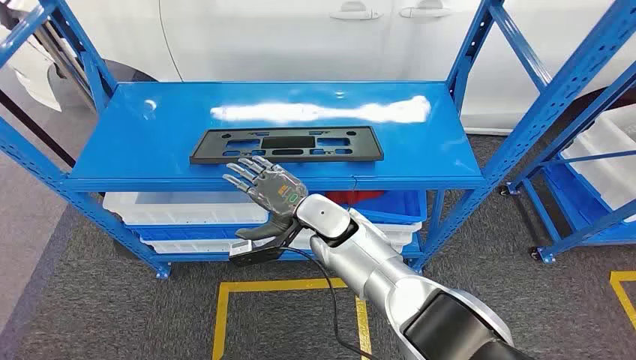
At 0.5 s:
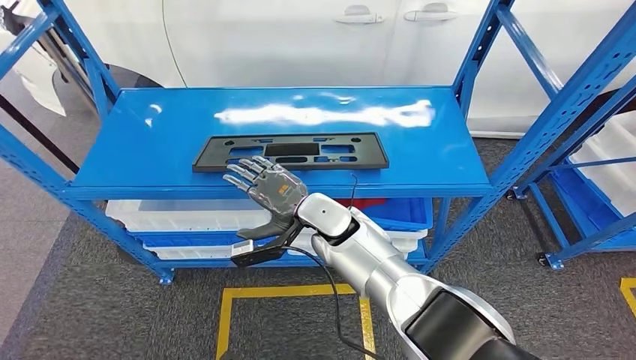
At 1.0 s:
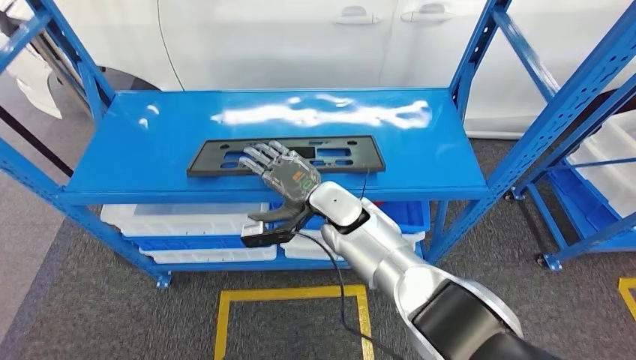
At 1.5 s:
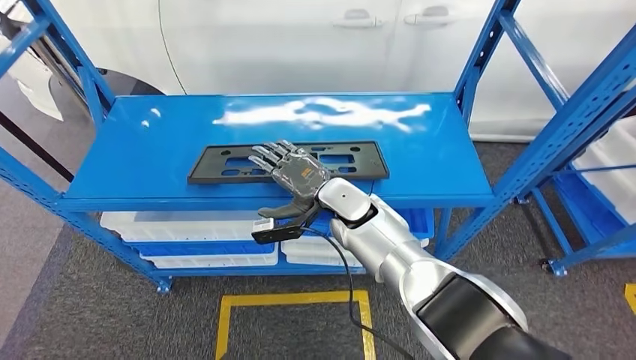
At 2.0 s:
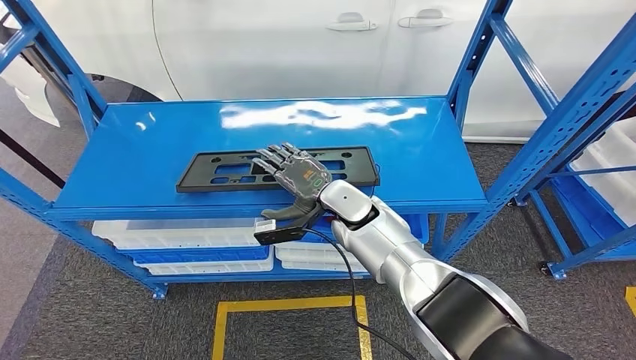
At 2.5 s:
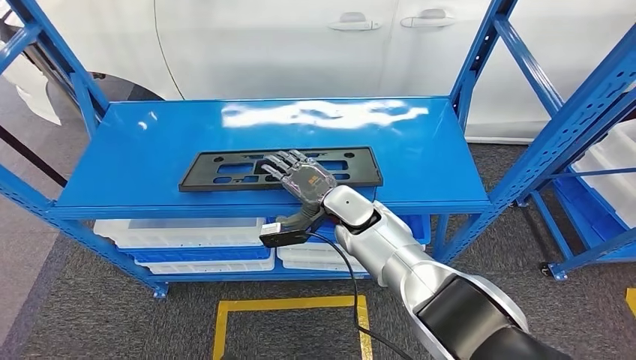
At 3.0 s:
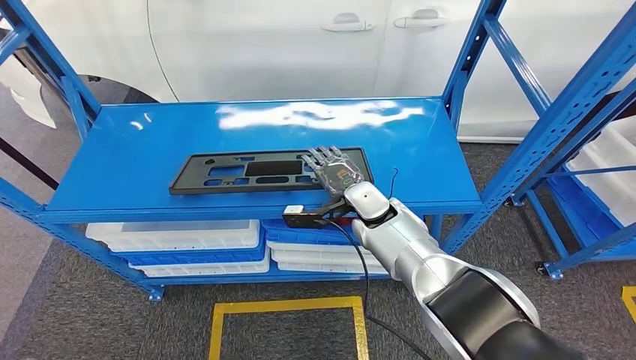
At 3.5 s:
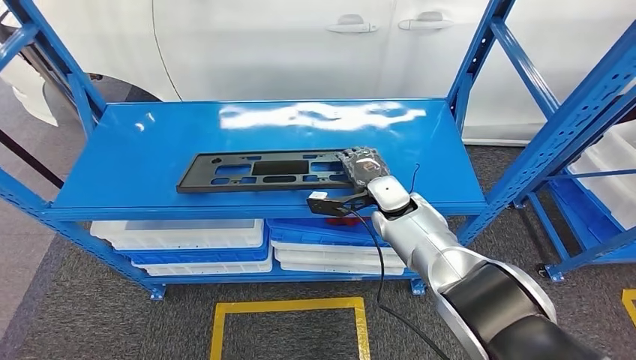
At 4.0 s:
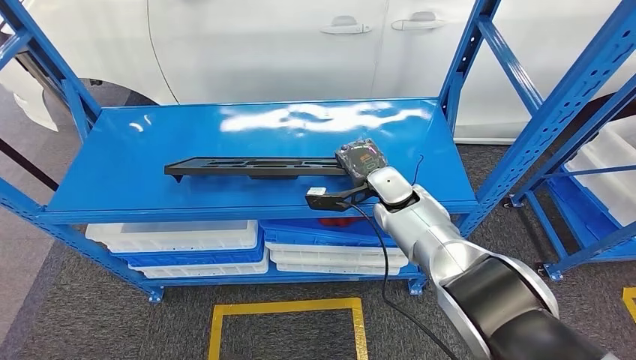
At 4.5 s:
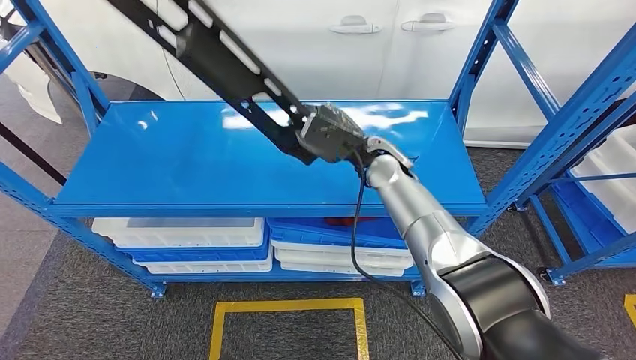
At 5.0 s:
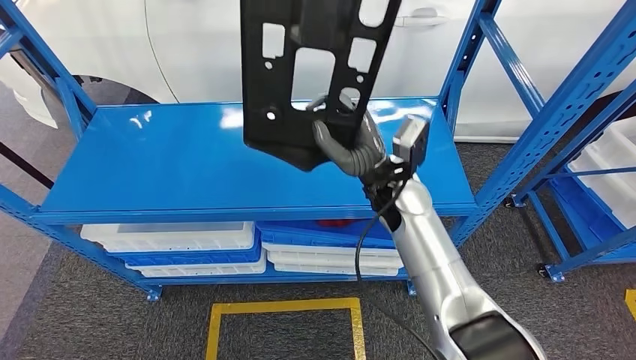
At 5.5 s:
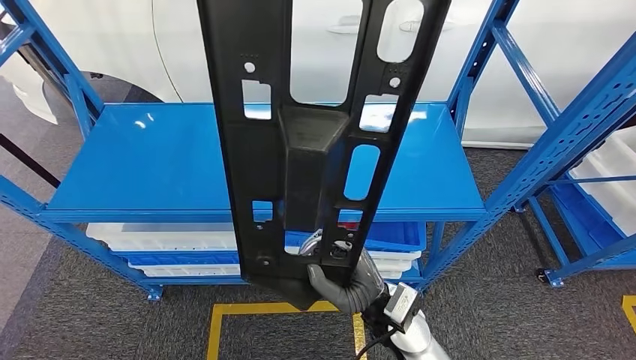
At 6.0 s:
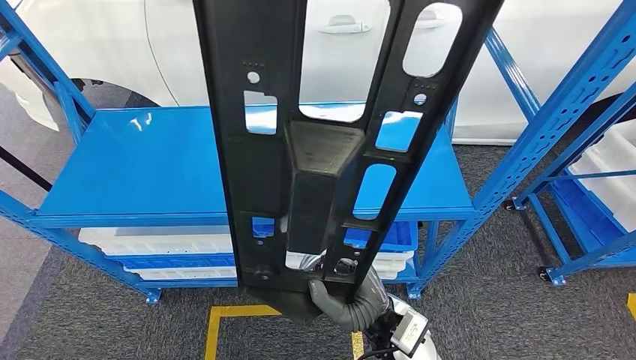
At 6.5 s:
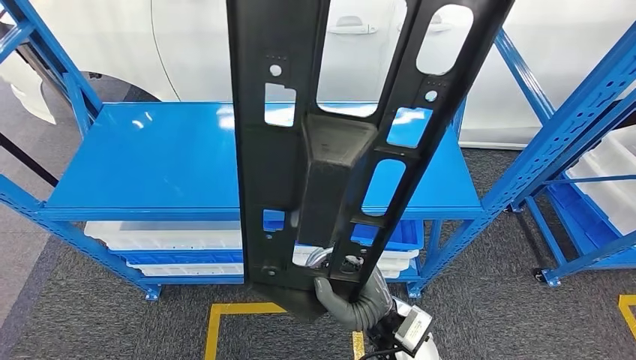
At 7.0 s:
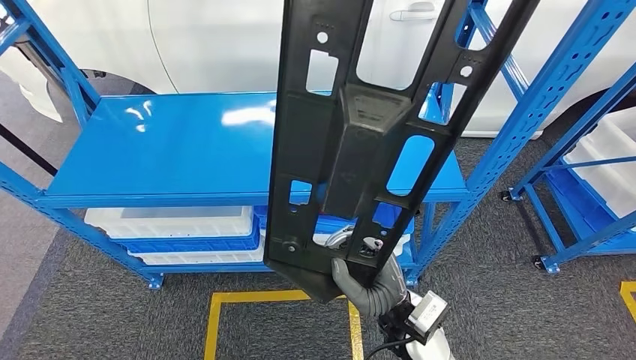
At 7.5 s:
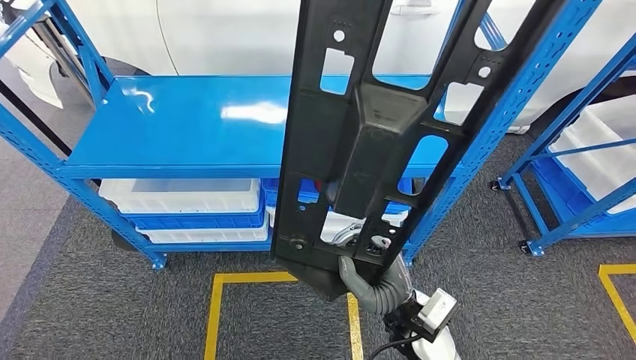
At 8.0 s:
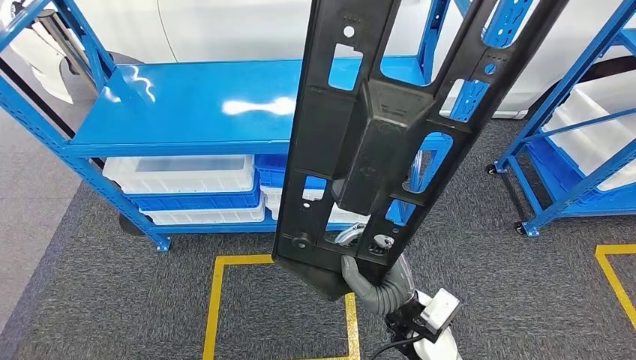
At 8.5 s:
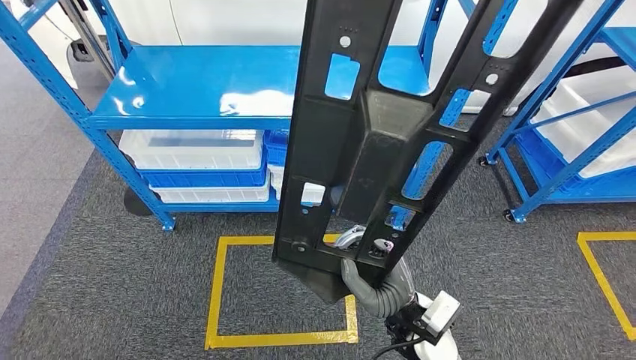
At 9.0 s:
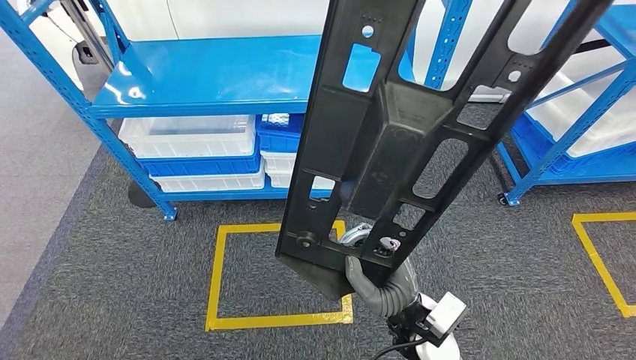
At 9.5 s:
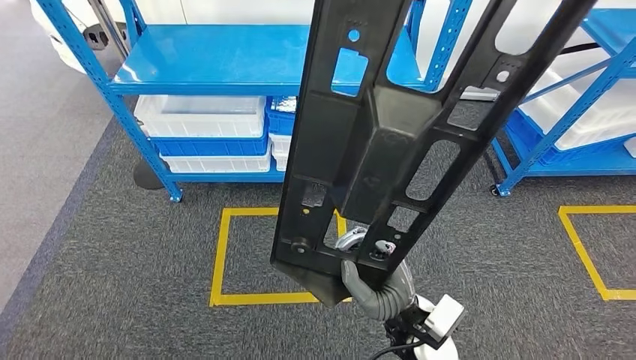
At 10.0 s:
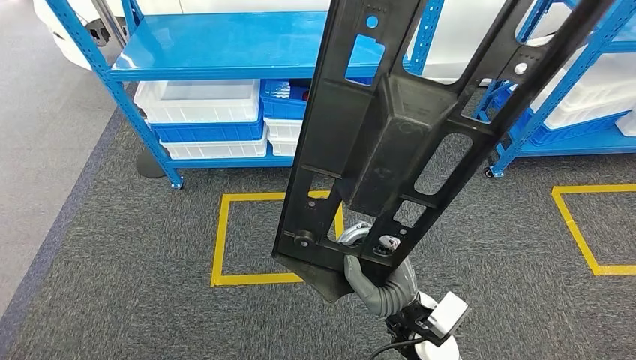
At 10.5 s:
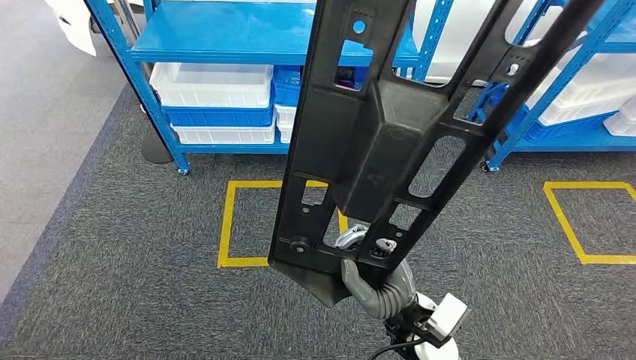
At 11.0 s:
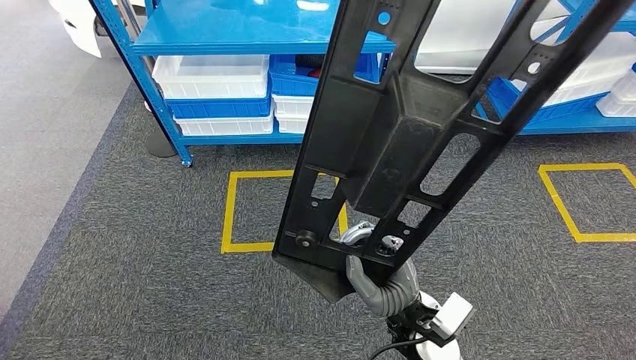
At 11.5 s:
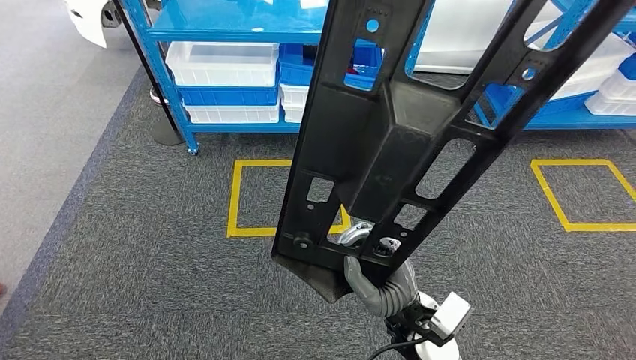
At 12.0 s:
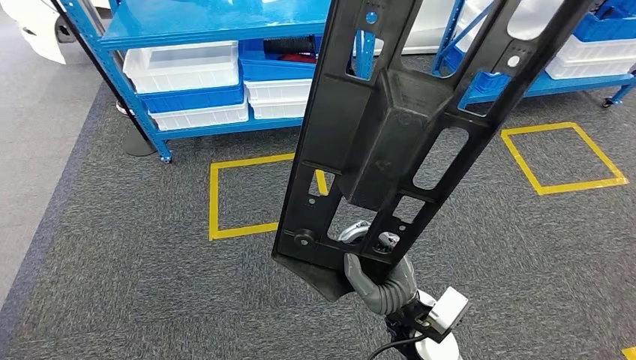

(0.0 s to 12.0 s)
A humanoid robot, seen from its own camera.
Step, 0.0 s - 4.0 s: Pick up the large material from the shelf.

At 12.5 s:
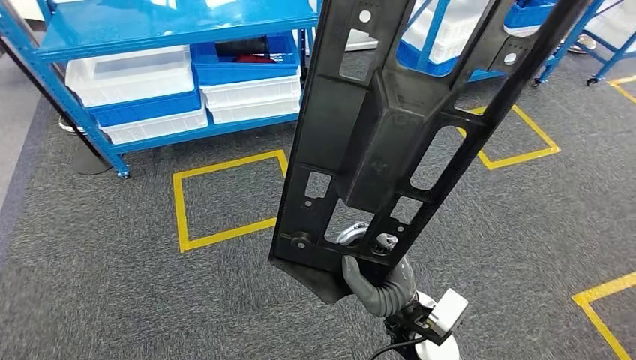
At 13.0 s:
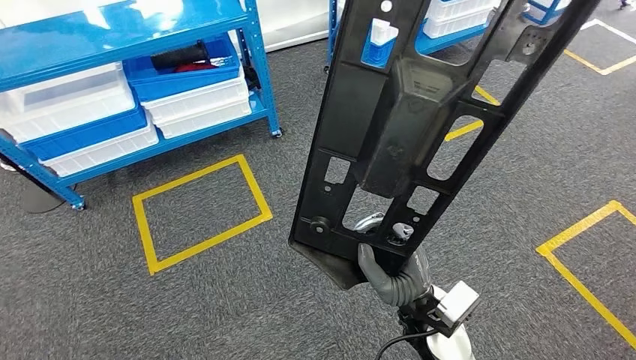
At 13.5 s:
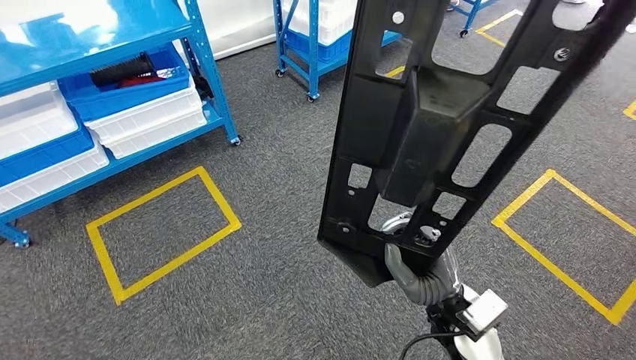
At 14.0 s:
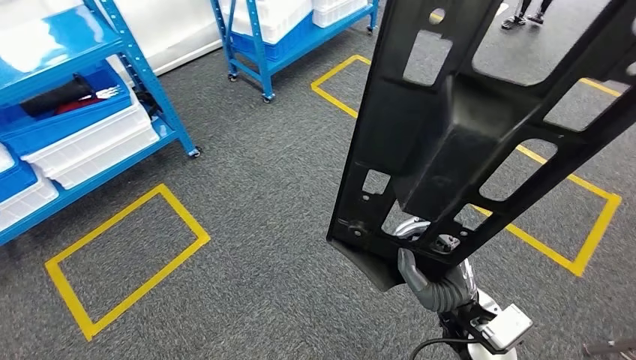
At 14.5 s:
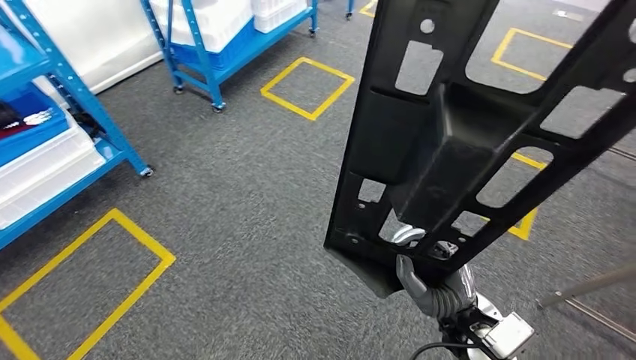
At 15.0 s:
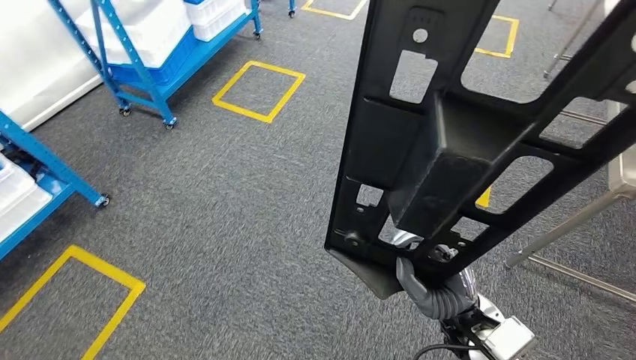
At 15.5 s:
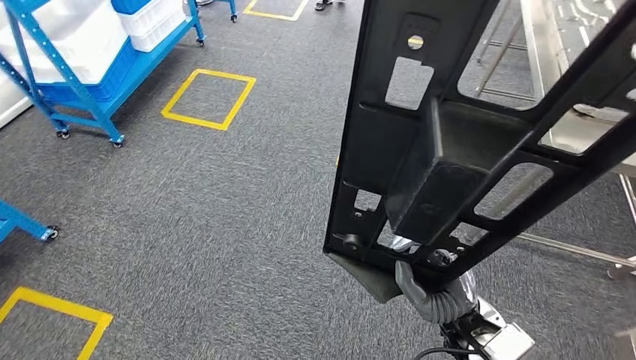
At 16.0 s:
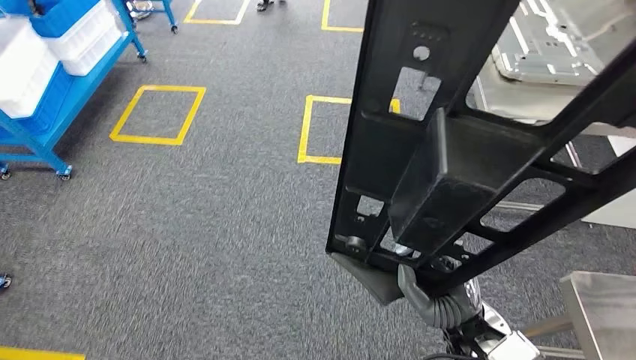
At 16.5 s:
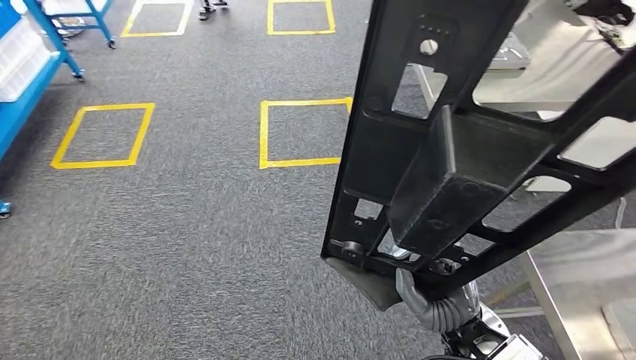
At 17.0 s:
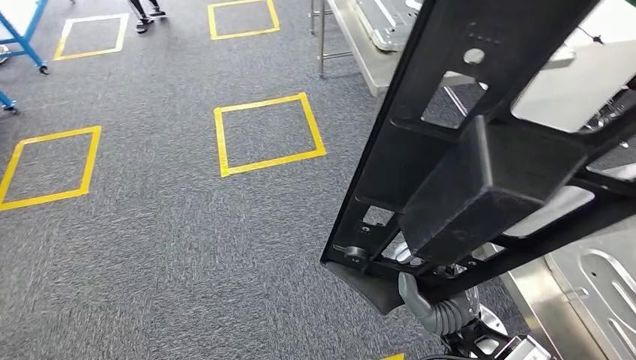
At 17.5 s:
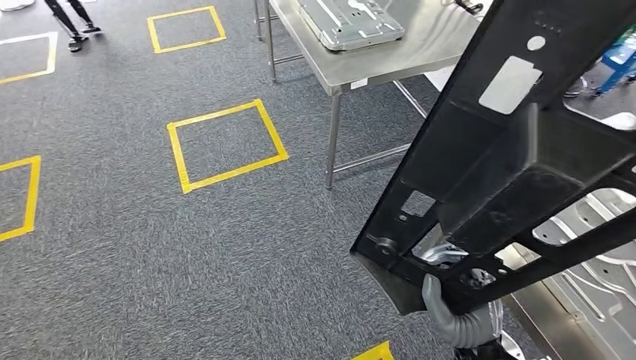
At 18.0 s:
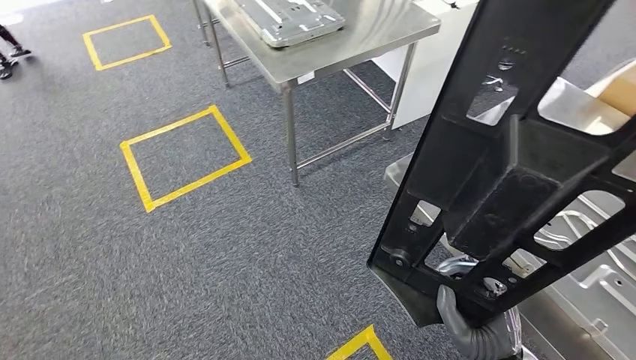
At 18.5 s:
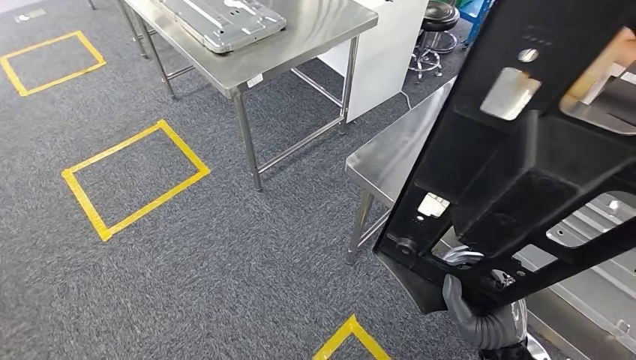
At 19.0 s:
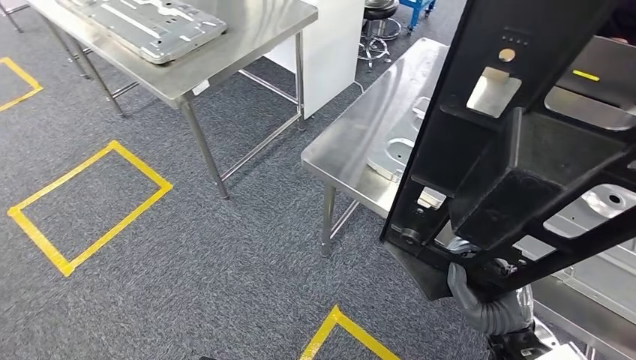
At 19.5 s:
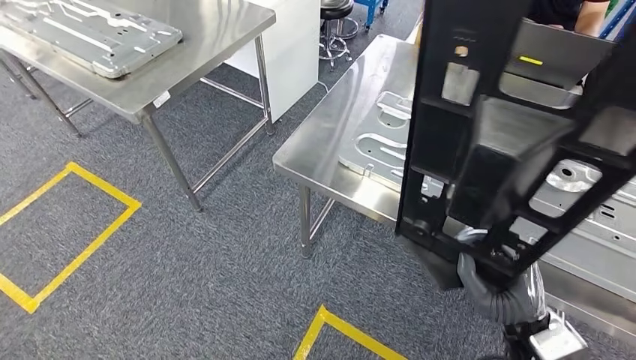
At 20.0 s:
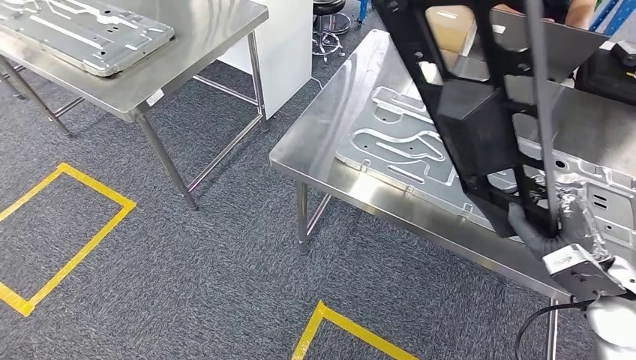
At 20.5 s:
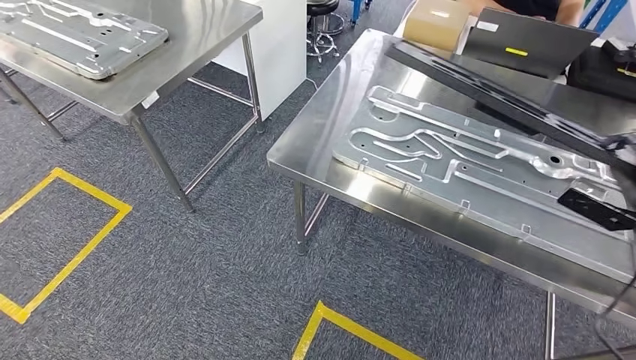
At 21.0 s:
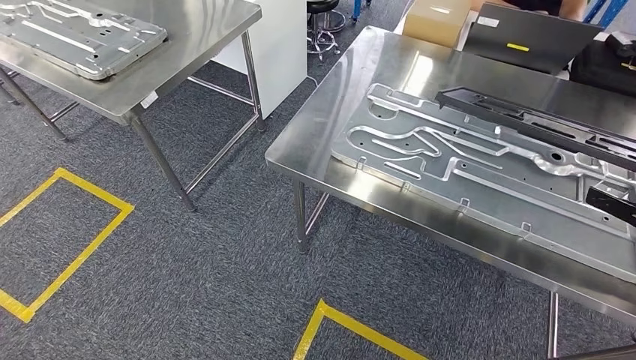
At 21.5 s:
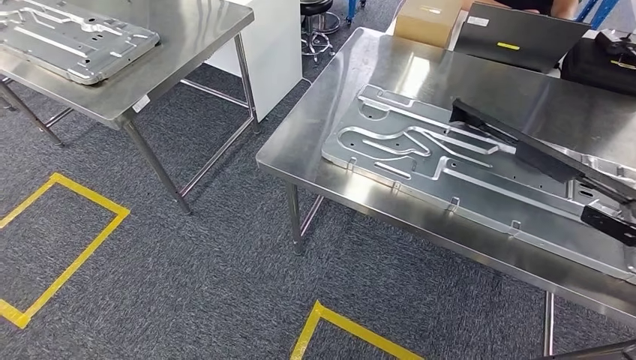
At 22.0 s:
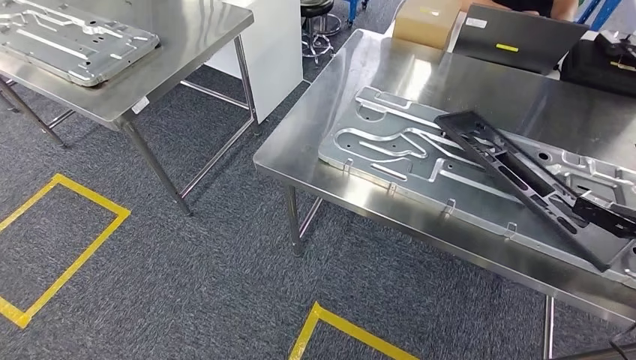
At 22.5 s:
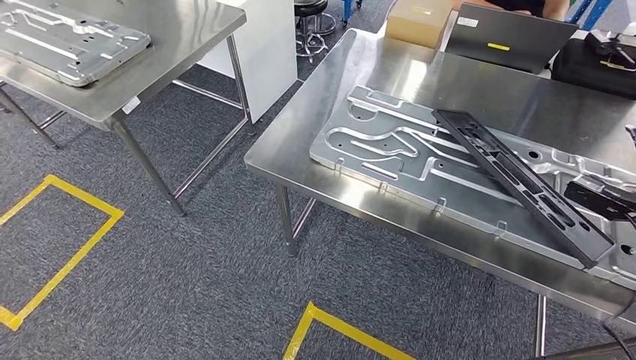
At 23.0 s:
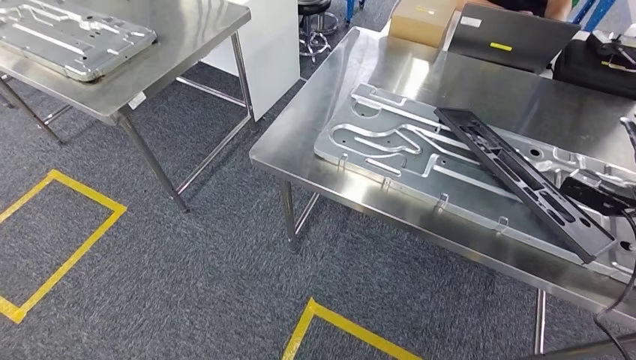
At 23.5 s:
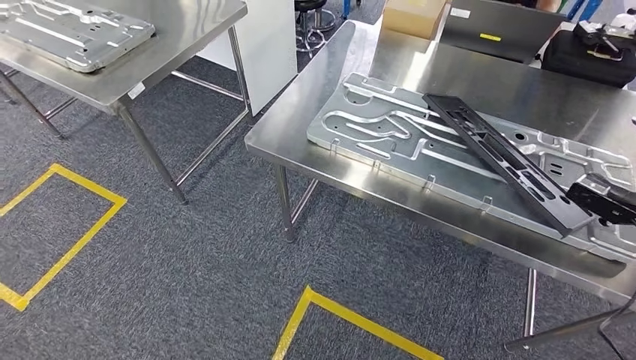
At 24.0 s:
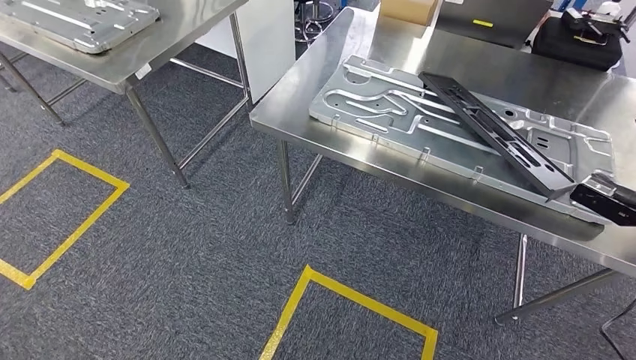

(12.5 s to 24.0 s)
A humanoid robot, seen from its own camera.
Step, 12.5 s - 19.5 s: Move the large material to the workbench.
